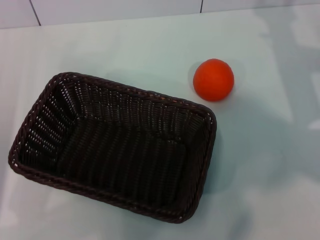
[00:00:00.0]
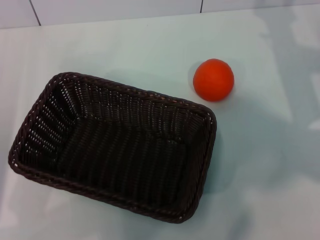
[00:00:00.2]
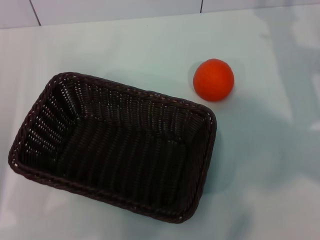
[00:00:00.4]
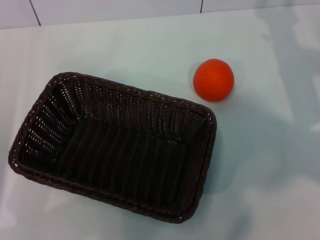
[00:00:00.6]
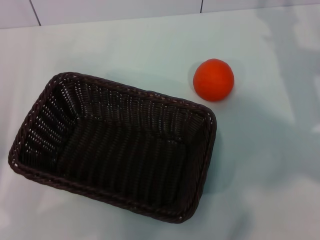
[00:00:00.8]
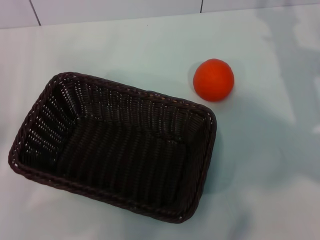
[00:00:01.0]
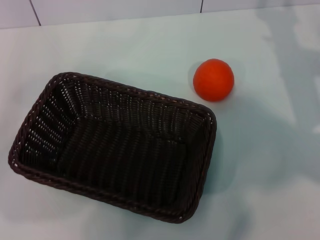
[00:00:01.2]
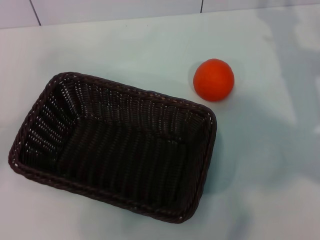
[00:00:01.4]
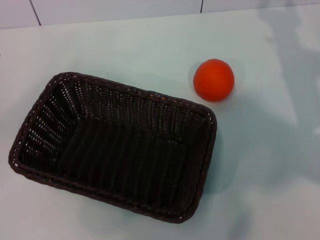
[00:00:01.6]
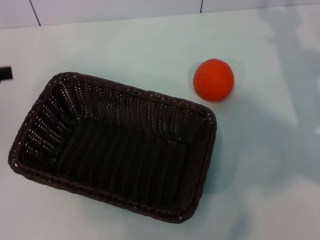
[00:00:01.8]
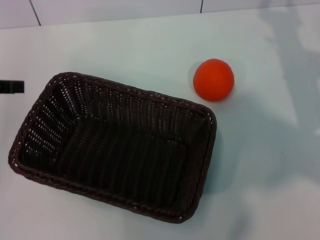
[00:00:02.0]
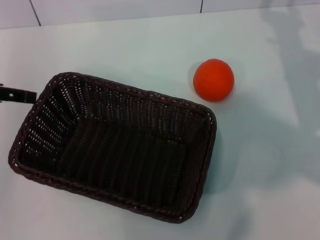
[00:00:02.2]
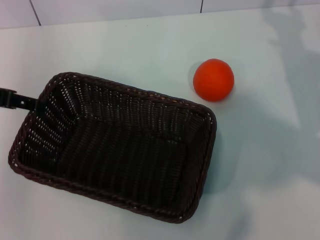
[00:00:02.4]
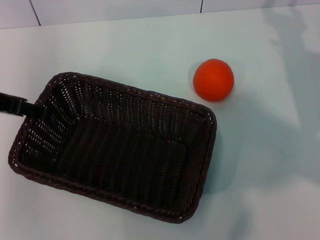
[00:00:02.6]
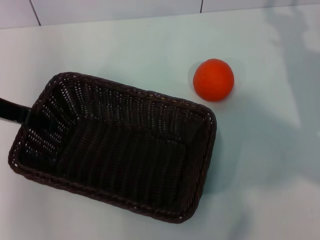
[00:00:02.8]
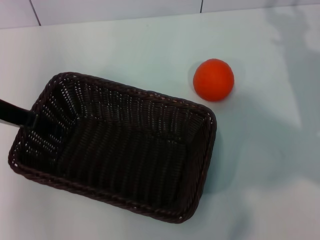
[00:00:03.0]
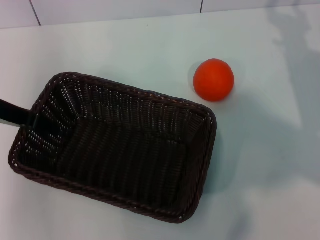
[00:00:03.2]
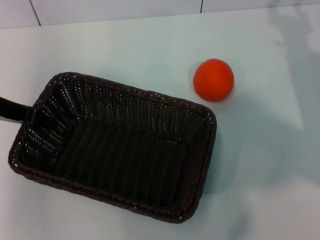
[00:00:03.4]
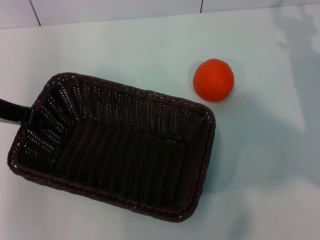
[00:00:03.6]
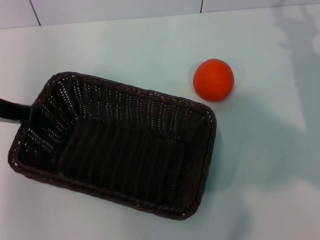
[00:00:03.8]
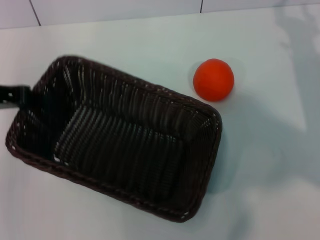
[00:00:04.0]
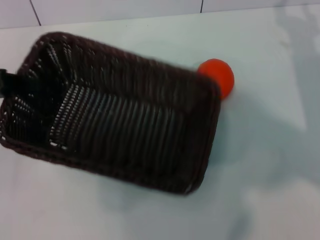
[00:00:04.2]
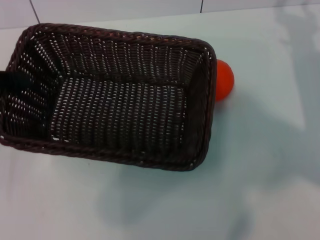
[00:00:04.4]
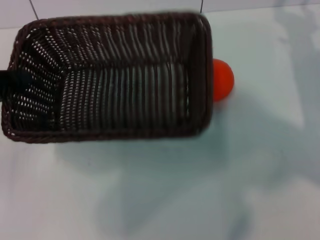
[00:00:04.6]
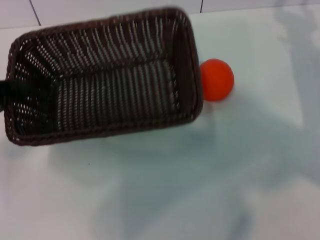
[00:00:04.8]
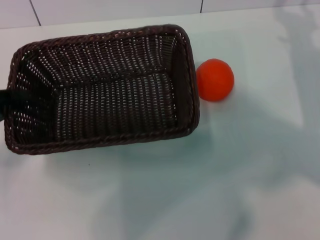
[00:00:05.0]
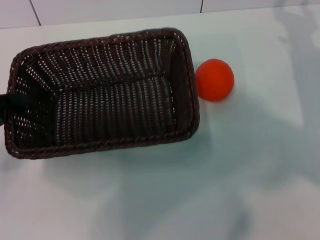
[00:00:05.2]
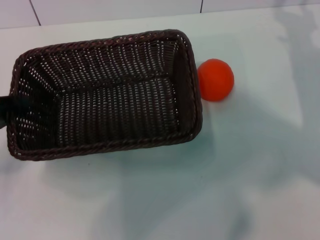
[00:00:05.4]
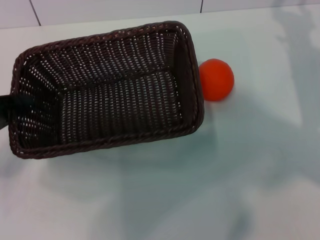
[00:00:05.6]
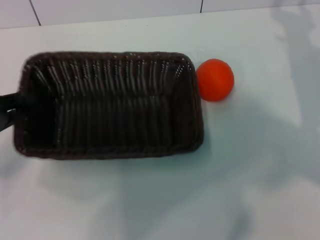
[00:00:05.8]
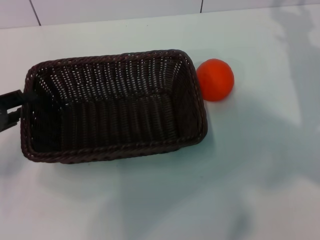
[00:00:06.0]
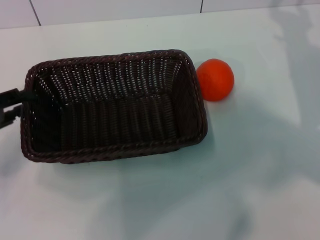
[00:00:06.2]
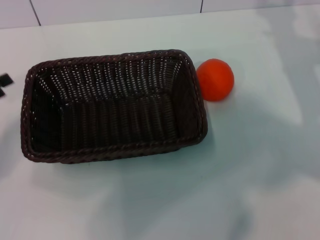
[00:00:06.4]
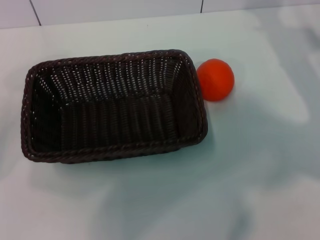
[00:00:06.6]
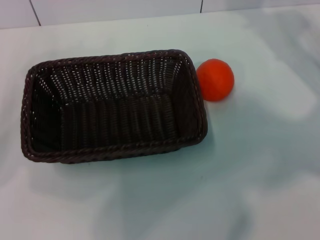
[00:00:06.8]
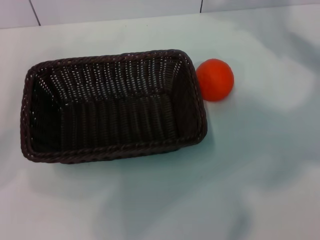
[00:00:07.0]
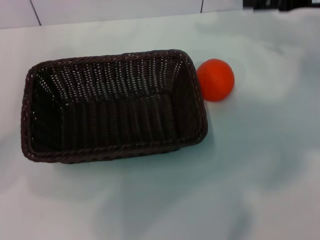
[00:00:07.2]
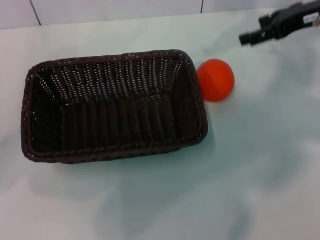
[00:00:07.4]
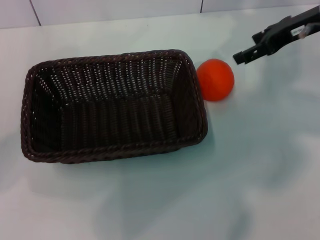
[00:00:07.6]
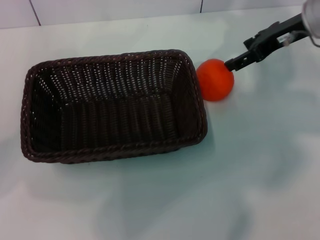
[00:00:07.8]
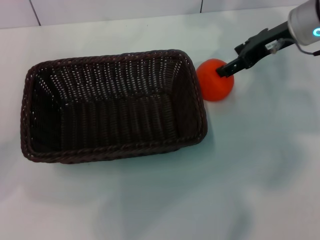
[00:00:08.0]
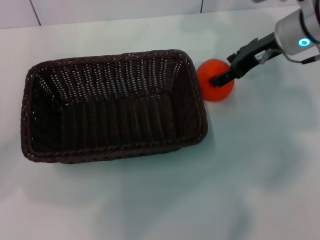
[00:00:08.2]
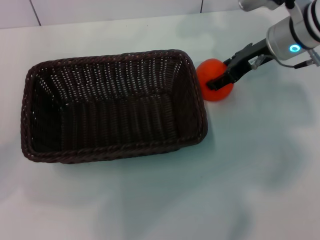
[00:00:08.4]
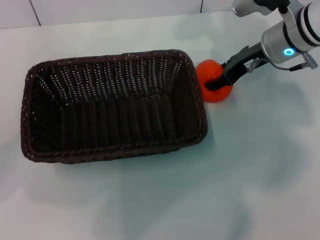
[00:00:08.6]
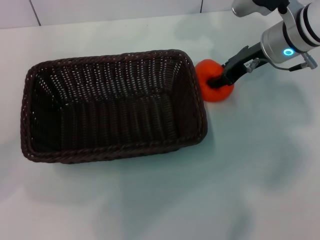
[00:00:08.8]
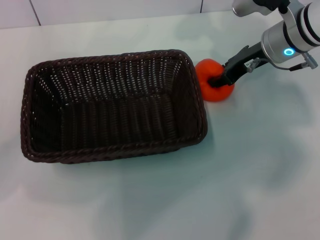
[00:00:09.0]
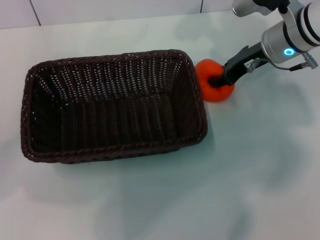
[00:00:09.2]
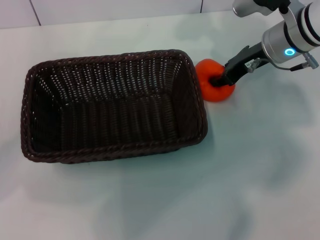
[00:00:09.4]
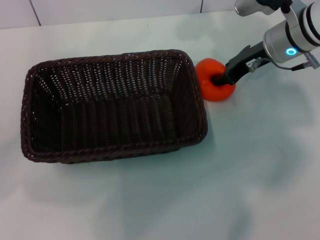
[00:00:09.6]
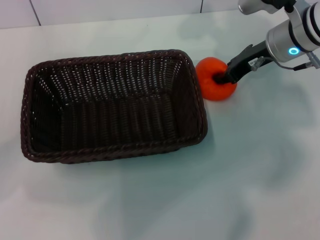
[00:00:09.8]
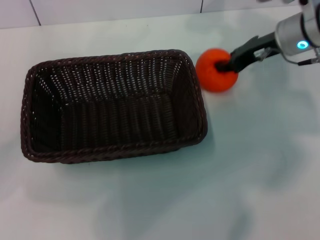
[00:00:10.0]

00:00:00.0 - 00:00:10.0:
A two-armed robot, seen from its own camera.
Task of the whole recording: the left gripper pick up the black basket and place it horizontally in the middle of the table, the right gripper pick up the orange and place it into the black basket.
Step, 00:00:00.0 - 00:00:03.8: Pick up the dark basket with the left gripper.
Step, 00:00:04.2 - 00:00:06.2: Place the dark basket in the center of view with the left gripper.
00:00:01.4 - 00:00:02.8: The left gripper goes some 15 cm to the right and forward.
00:00:02.8 - 00:00:04.2: The left gripper shifts some 5 cm to the left, and closes its fingers.
00:00:04.2 - 00:00:05.8: The left gripper shifts roughly 10 cm downward.
00:00:05.8 - 00:00:07.2: The left gripper opens. The right gripper goes some 10 cm upward and forward.
00:00:07.2 - 00:00:08.6: The right gripper goes roughly 10 cm to the left and downward.
00:00:08.6 - 00:00:10.0: The right gripper closes its fingers.

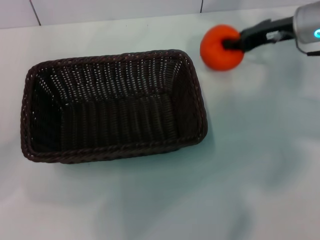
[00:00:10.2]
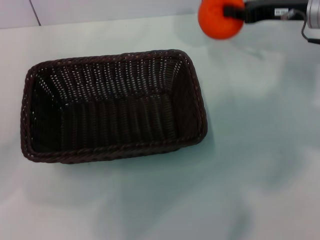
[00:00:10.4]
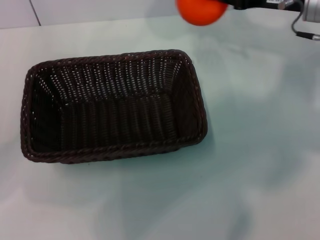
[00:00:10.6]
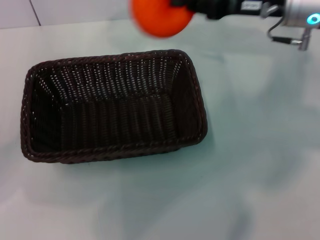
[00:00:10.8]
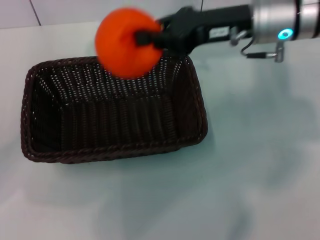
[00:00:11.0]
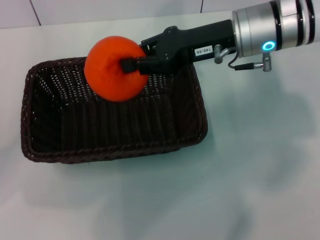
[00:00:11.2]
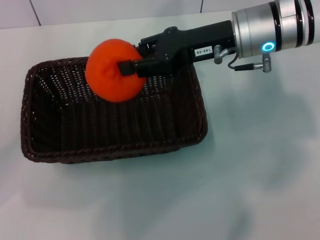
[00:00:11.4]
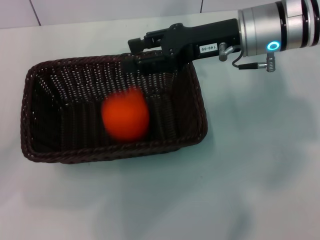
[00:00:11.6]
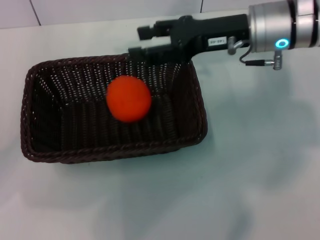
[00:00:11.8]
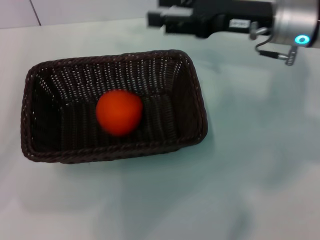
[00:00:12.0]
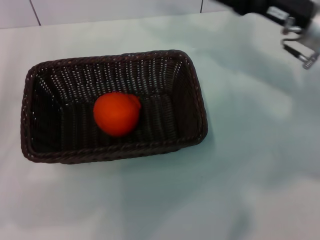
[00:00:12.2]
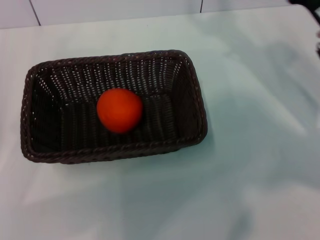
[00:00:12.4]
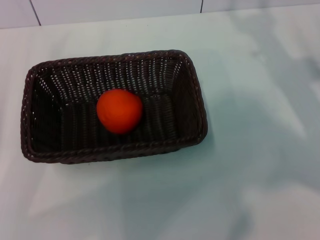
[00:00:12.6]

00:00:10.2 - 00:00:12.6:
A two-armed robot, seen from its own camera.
Task of the whole recording: the left gripper pick up the black basket and place it horizontally in the middle of the table, the right gripper pick up the orange and place it into the black basket.
00:00:10.2 - 00:00:11.4: The right gripper shifts roughly 10 cm to the left.
00:00:11.4 - 00:00:12.6: The left gripper moves backward, about 5 cm; the right gripper goes approximately 20 cm to the right, downward and backward, and opens its fingers.
